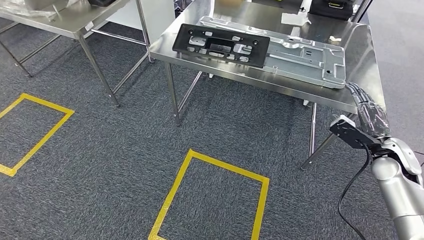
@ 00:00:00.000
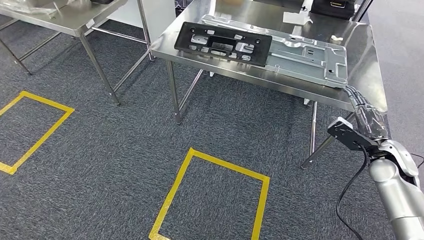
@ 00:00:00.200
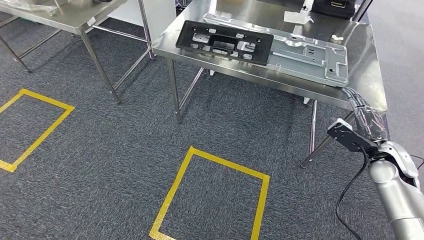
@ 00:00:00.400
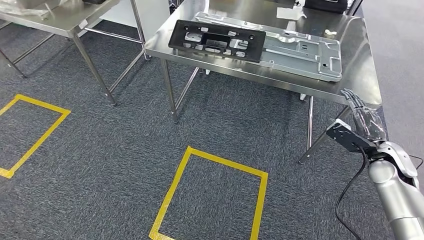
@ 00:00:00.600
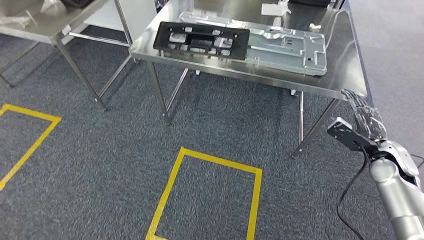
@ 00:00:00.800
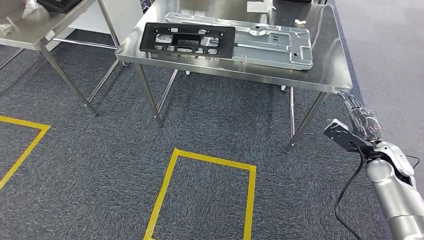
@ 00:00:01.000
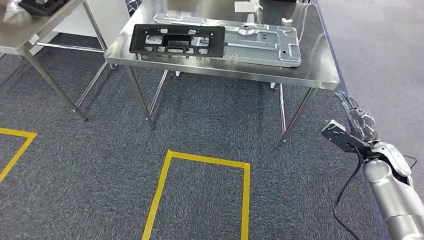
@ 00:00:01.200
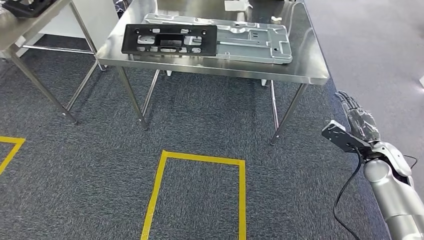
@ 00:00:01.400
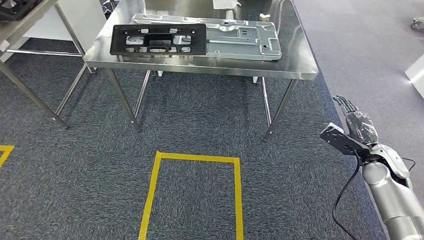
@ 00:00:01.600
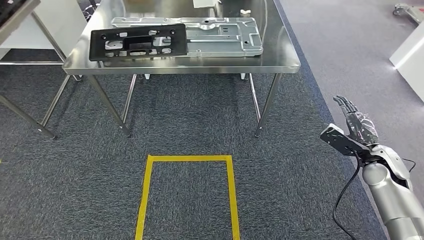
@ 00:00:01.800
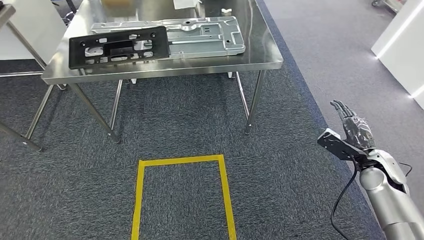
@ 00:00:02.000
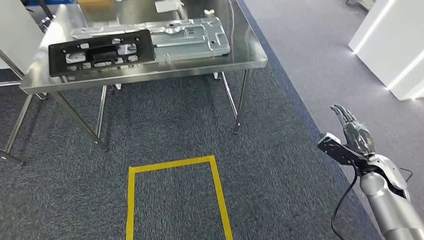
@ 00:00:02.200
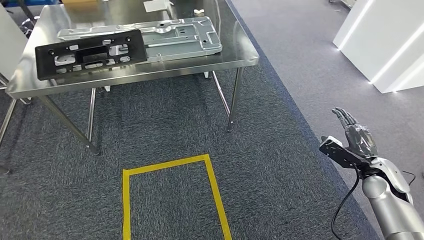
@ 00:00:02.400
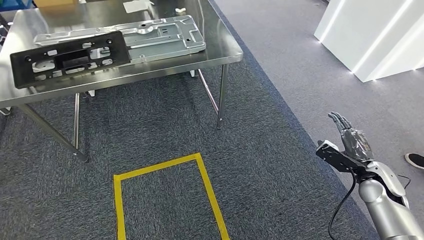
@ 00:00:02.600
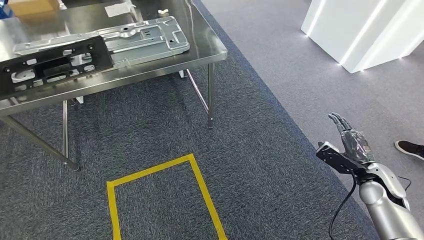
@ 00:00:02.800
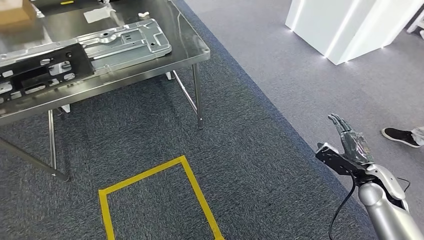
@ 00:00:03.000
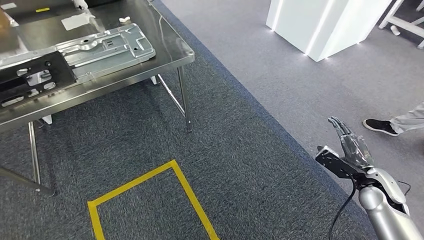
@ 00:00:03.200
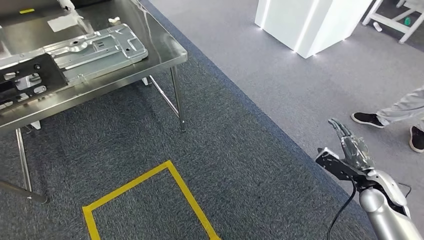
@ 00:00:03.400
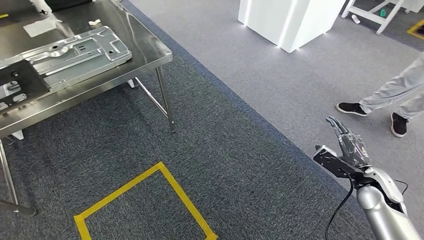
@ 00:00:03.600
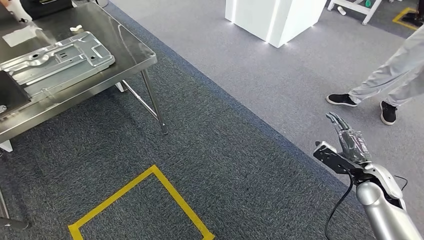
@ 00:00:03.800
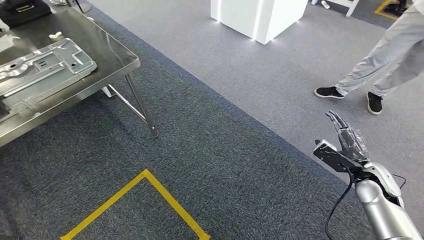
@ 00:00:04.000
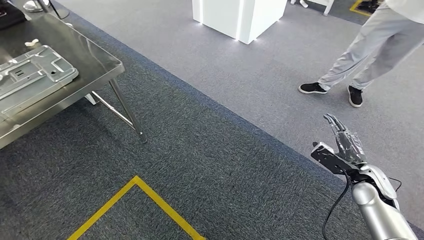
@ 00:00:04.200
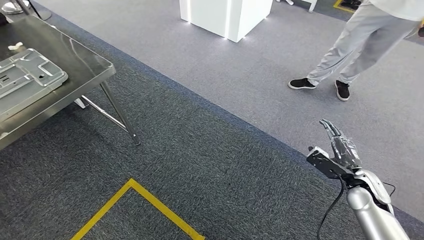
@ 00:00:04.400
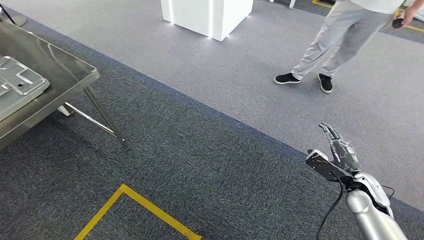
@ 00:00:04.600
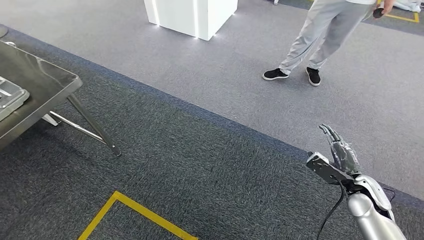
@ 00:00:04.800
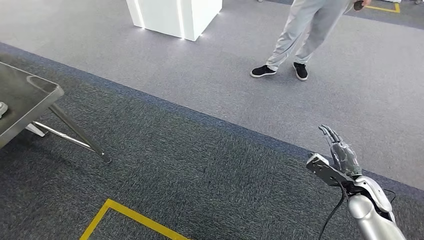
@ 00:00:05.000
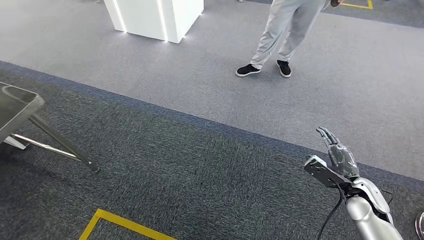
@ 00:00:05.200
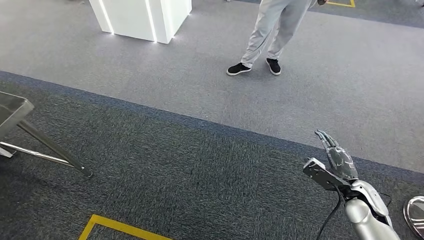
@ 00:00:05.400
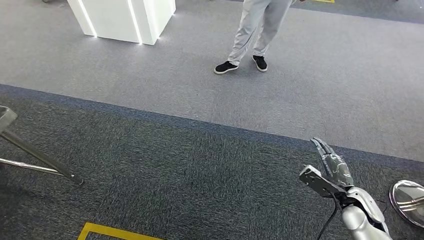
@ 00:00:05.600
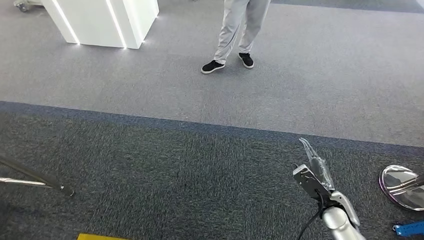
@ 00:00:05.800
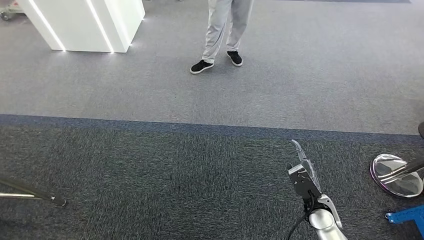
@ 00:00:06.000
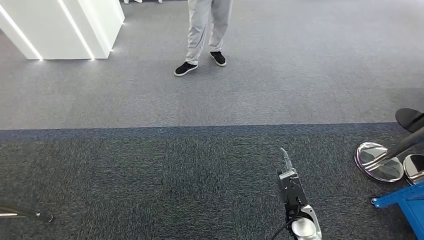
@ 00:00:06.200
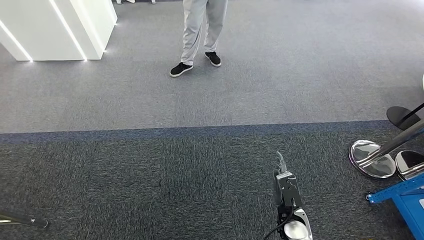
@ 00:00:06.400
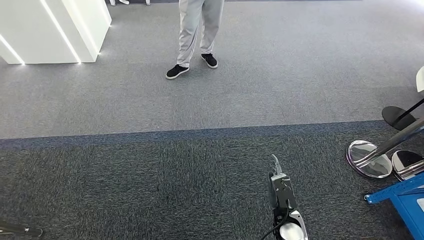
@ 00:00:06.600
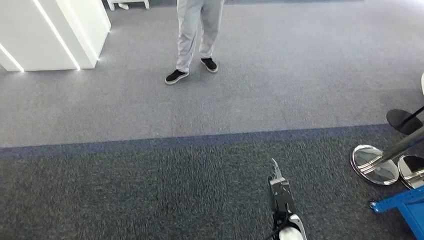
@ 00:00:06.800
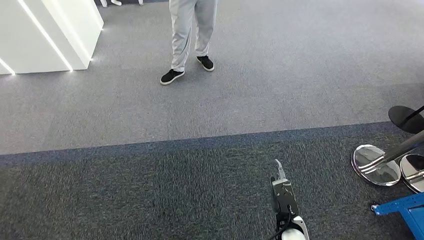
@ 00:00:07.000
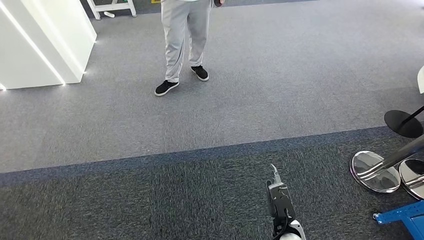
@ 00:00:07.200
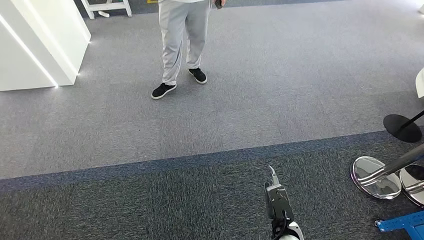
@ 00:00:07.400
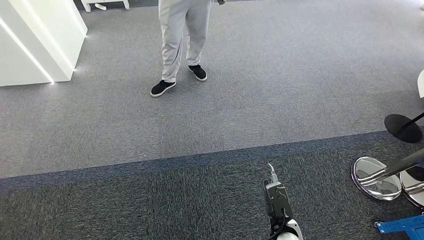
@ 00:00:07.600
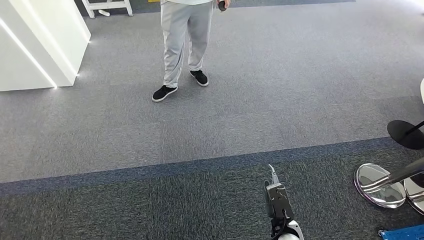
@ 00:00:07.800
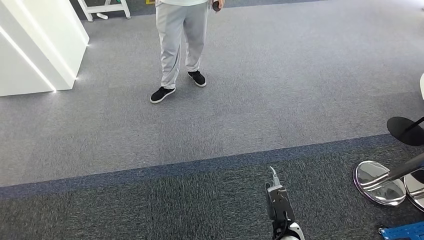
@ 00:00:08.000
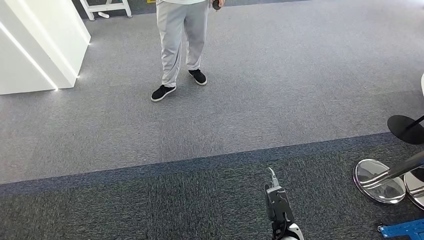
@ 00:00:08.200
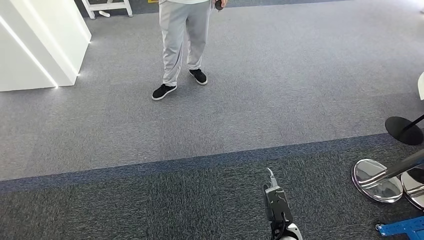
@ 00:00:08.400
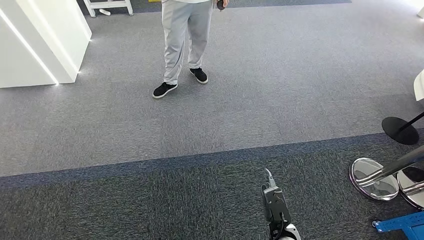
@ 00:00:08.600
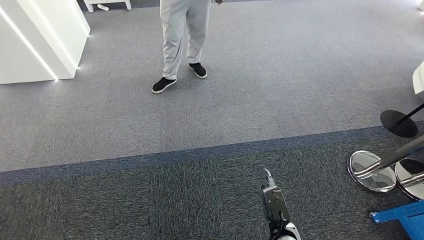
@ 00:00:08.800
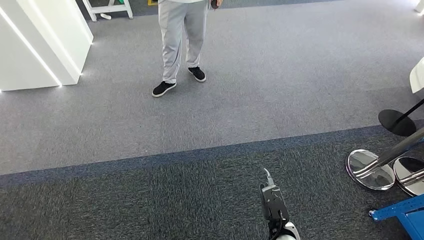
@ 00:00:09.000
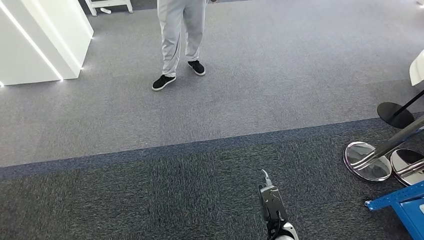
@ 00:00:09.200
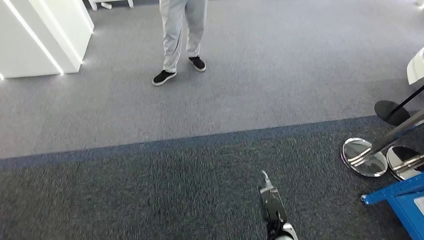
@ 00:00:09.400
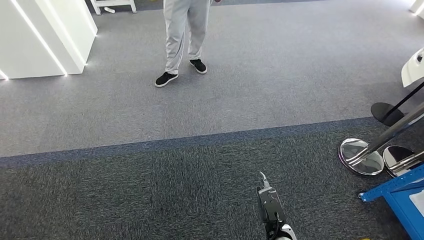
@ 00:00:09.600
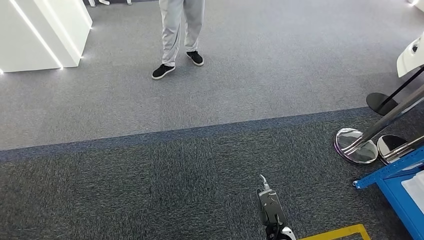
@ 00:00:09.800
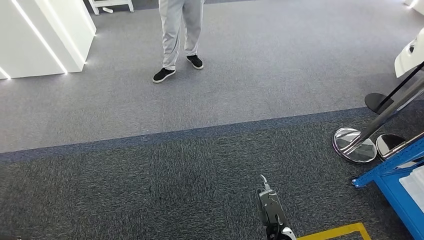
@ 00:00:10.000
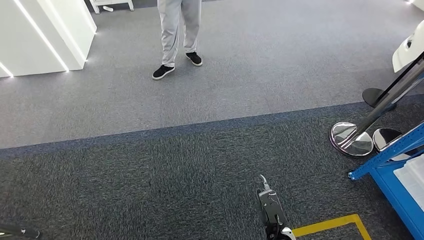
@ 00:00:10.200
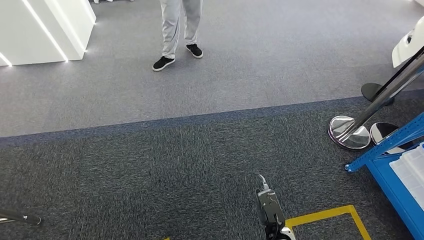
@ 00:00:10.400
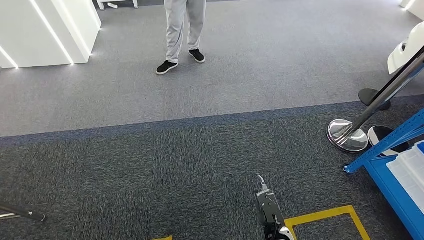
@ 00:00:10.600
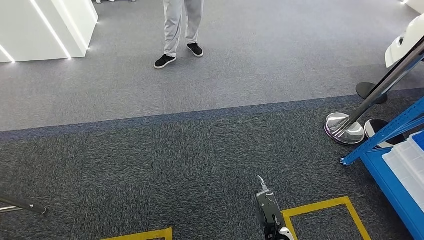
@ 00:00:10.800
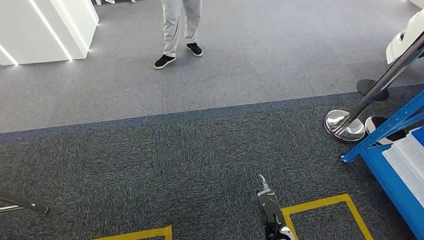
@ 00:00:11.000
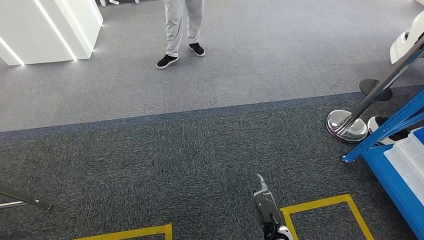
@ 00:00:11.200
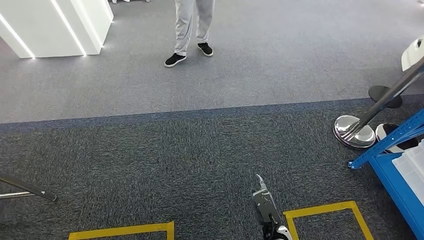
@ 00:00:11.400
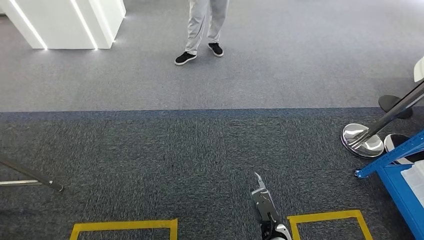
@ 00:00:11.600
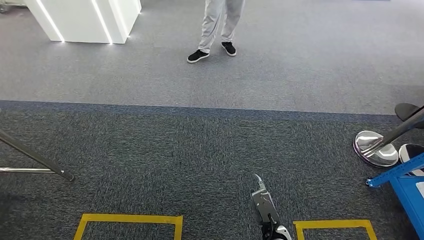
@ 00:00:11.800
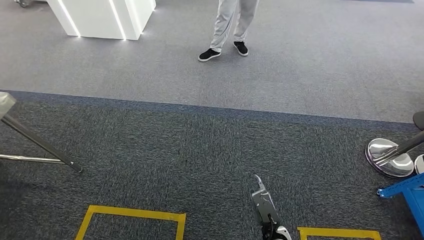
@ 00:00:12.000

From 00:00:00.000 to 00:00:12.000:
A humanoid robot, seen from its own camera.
From 00:00:07.600 to 00:00:09.000: The hands make only small movements.

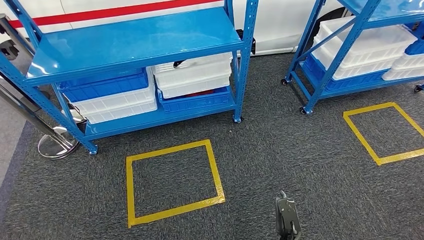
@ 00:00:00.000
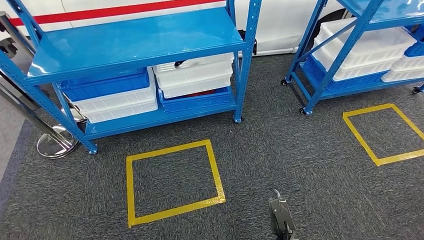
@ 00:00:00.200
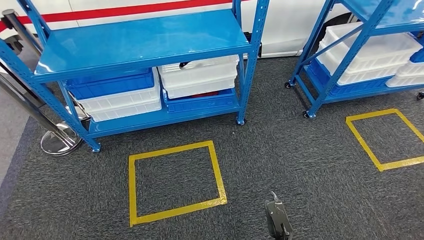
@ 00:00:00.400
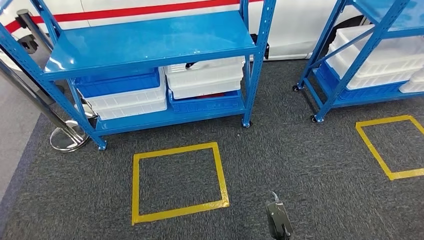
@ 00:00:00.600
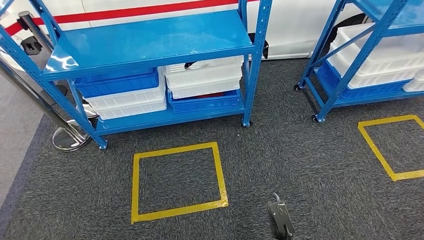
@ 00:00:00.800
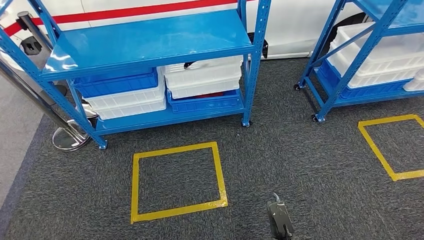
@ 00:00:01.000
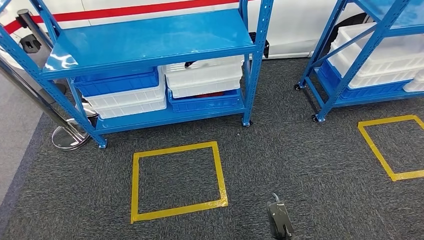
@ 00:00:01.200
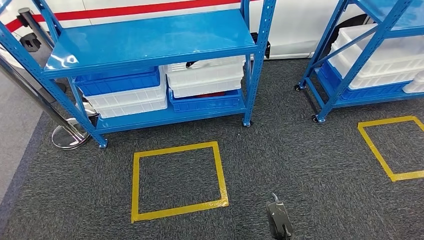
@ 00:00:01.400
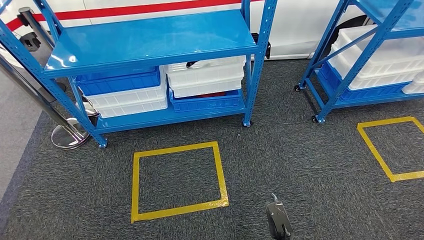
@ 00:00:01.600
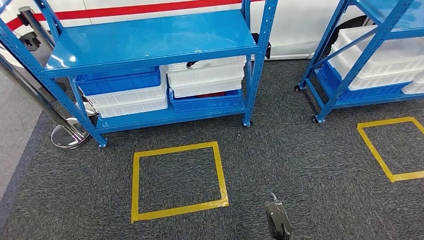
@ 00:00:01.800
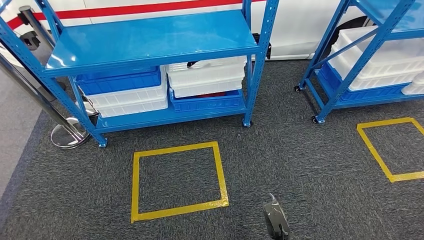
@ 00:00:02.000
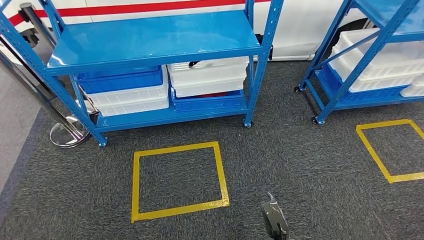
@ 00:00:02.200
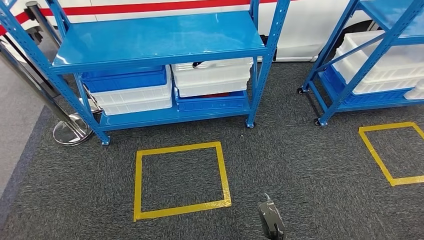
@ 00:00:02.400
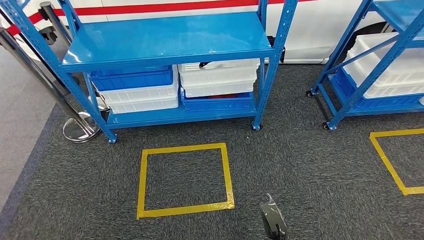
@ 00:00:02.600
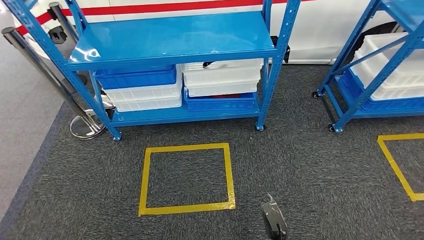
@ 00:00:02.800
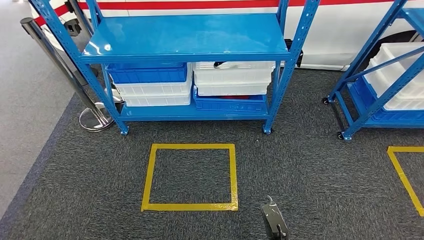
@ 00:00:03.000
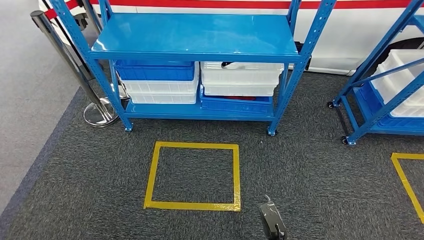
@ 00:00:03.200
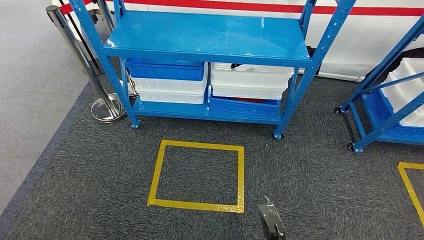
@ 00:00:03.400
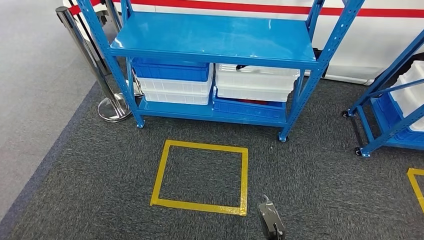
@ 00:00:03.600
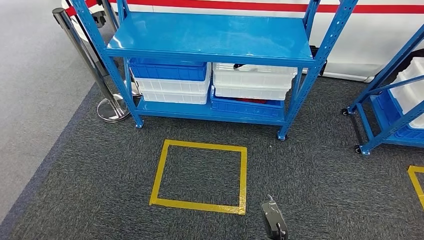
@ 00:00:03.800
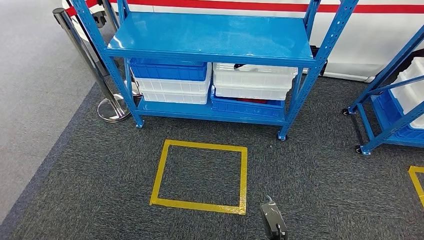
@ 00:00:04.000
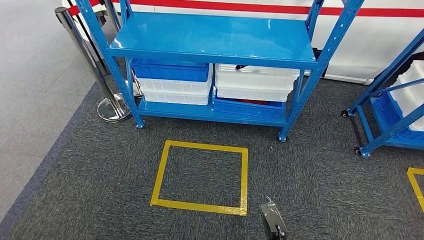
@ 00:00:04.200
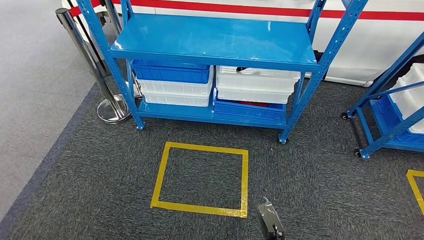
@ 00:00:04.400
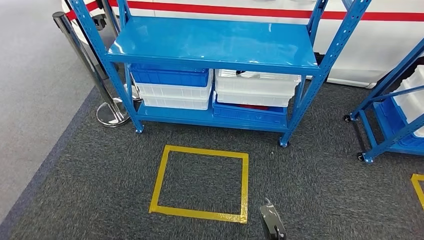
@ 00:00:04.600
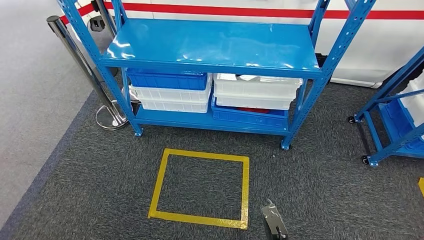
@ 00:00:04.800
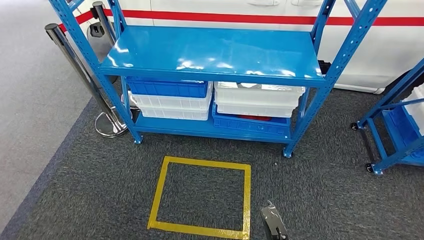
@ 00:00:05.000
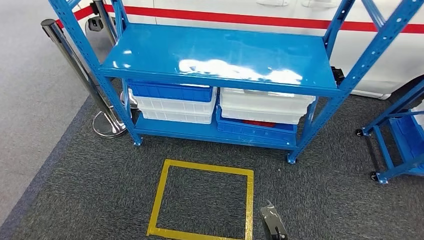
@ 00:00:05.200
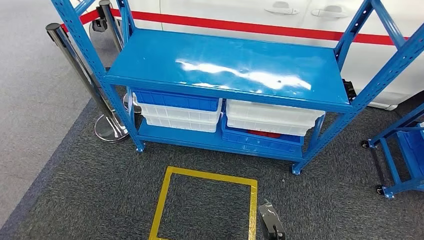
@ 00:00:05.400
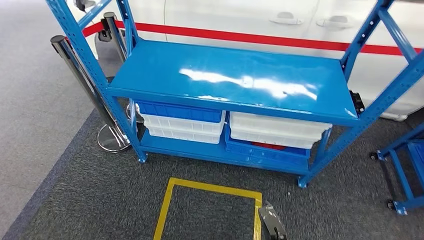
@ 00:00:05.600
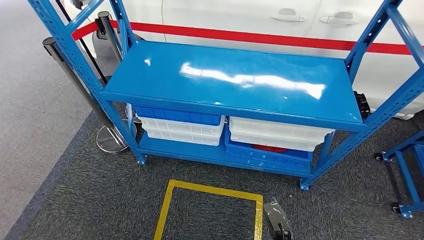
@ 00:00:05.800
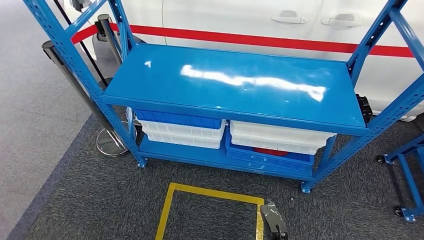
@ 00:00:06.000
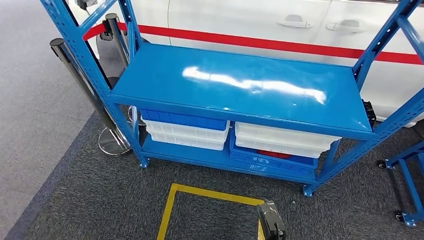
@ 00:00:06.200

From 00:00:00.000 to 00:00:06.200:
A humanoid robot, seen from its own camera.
Step, from 00:00:00.000 to 00:00:06.200: Move to the initial position of the shelf.
